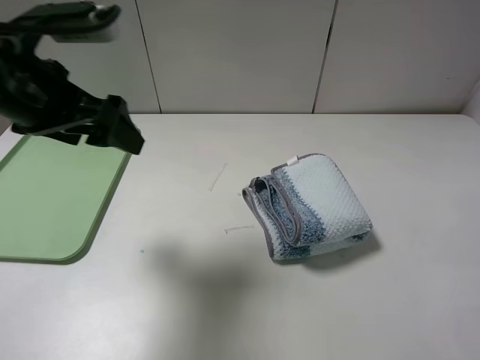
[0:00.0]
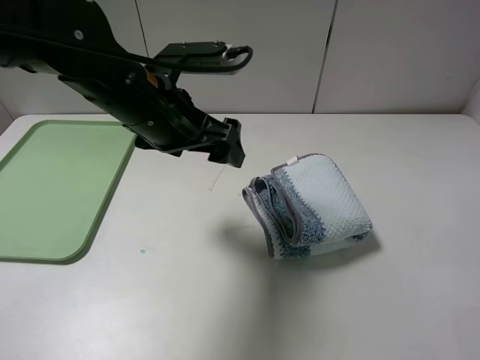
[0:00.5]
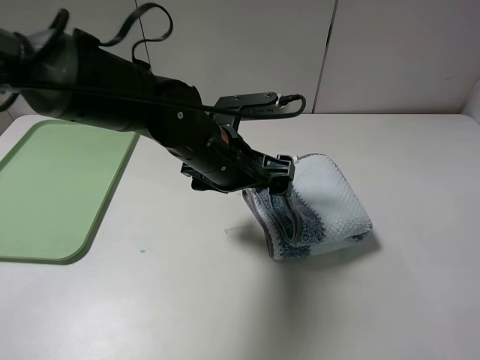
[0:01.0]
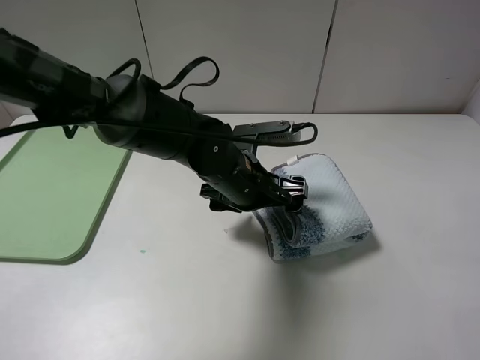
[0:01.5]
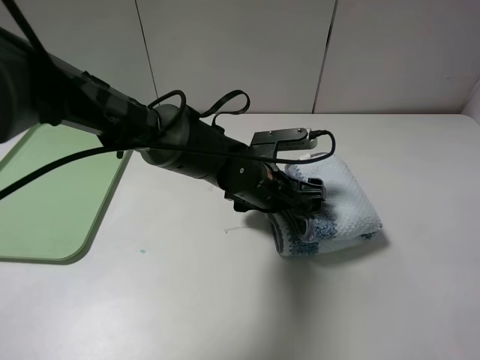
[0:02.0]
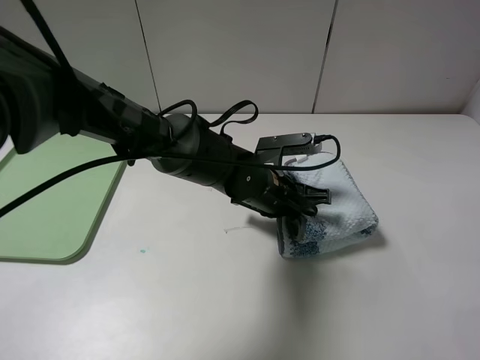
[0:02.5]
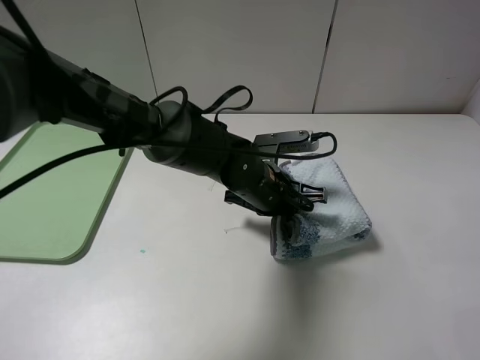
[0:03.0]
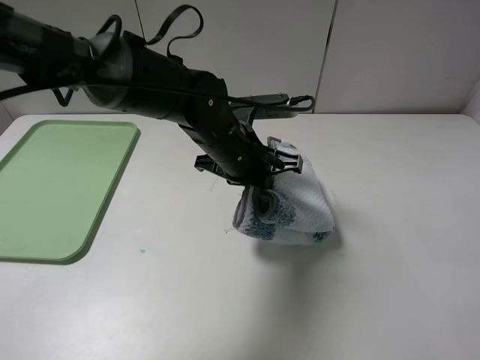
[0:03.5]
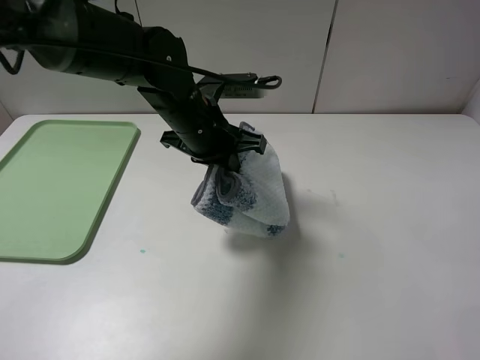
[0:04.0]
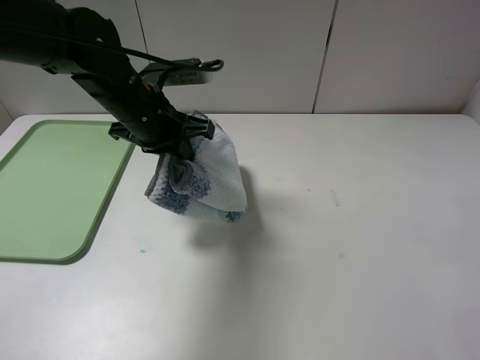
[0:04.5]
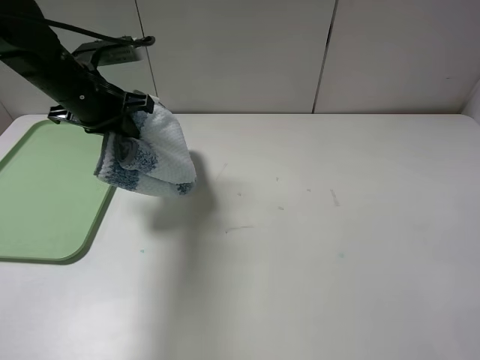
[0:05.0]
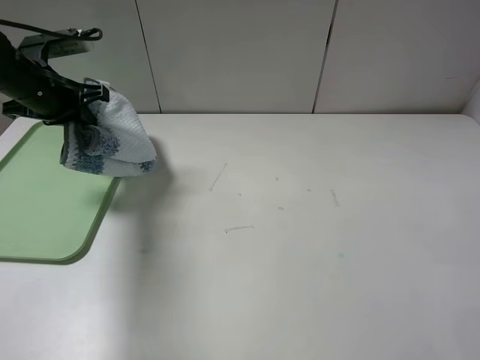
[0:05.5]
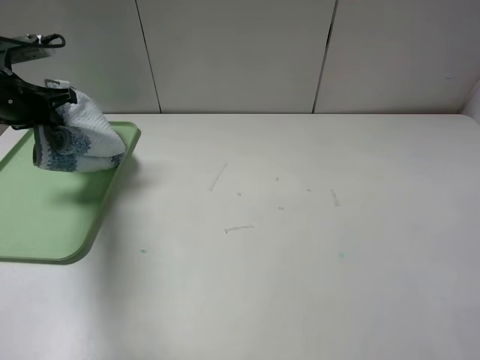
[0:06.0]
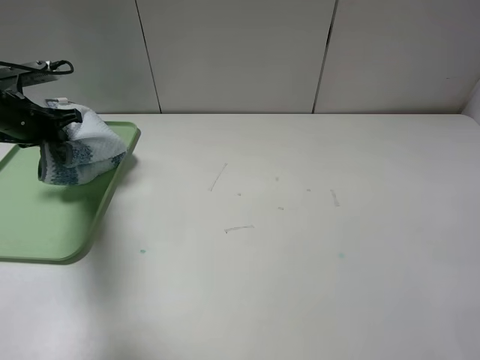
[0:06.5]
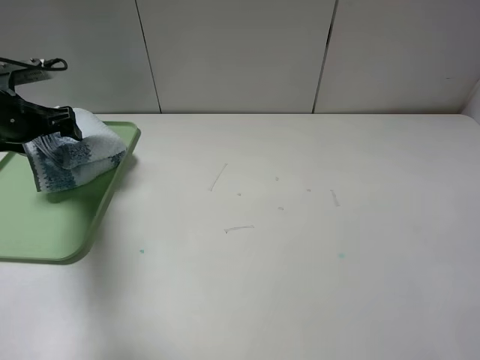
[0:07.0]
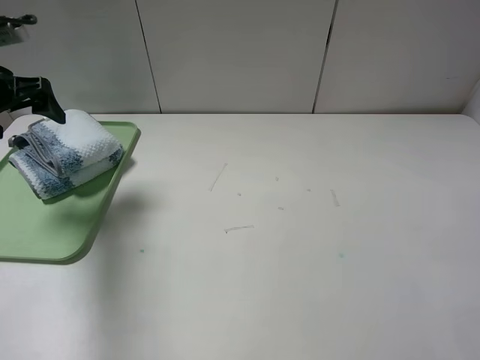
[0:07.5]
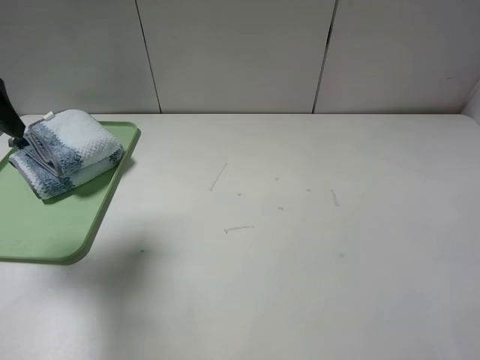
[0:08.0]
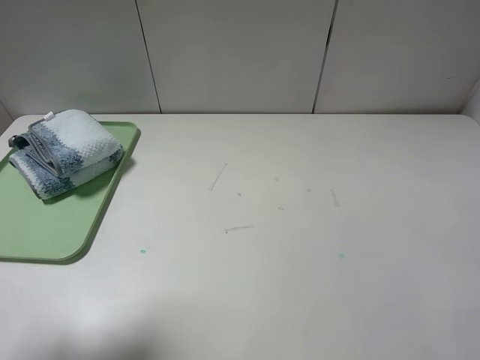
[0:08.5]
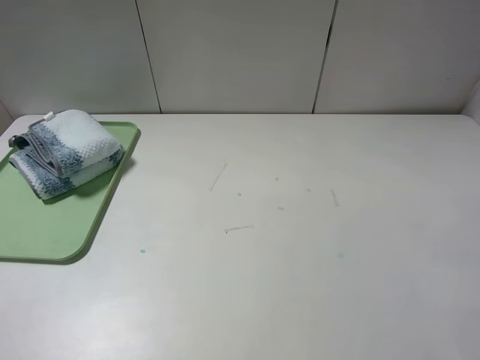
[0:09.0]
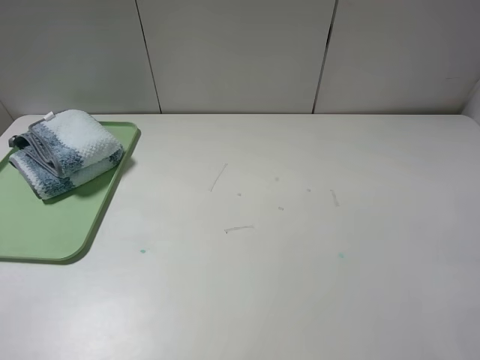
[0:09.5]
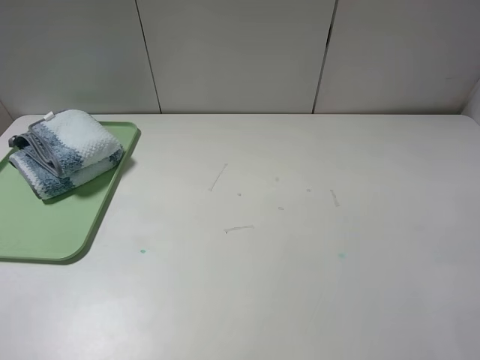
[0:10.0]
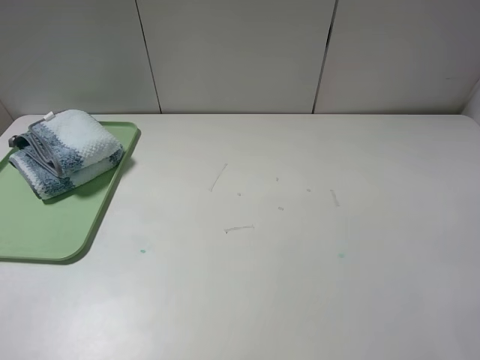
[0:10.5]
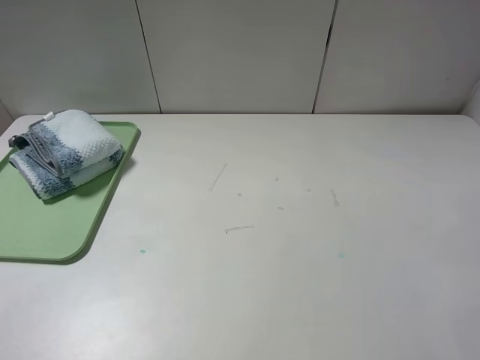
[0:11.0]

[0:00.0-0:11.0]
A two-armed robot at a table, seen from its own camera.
Step, 0:00.0 to 0:02.5: Grasp the blue white towel with the left gripper.
0:00.0 to 0:02.0: The left gripper travels to the right and downward by about 30 cm.
0:02.0 to 0:03.5: The left gripper moves upward, about 5 cm, and closes its fingers.
0:03.5 to 0:05.5: The left gripper moves to the left, roughly 30 cm.
0:05.5 to 0:07.5: The left gripper moves to the left, roughly 5 cm, and opens.
0:07.5 to 0:09.0: The left gripper moves backward, roughly 30 cm.
